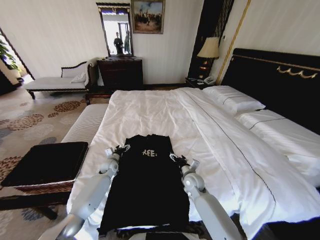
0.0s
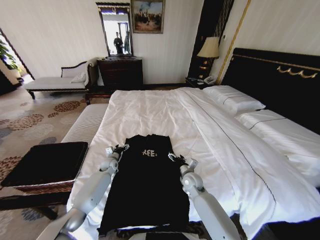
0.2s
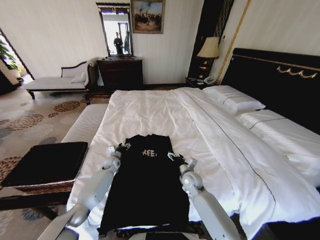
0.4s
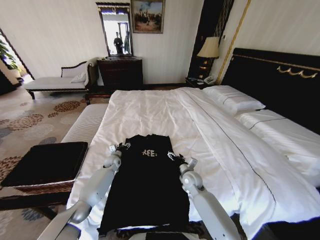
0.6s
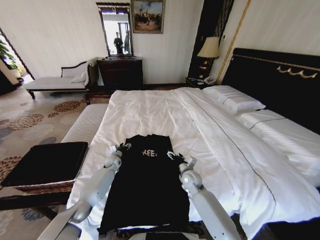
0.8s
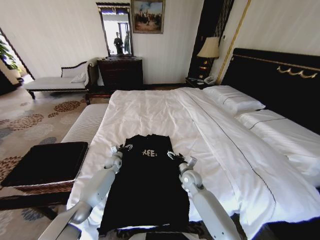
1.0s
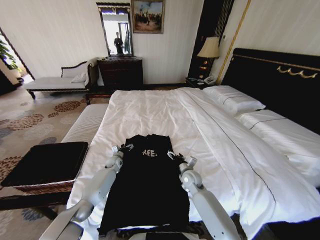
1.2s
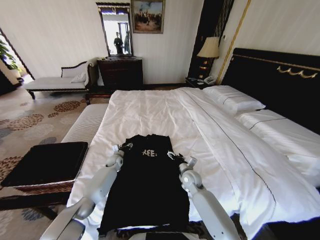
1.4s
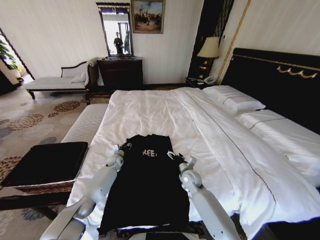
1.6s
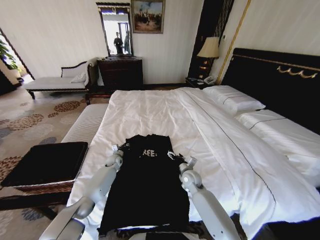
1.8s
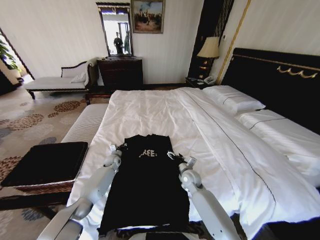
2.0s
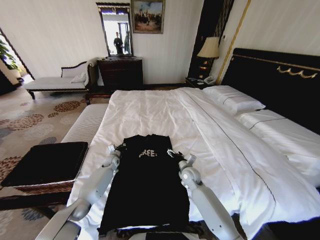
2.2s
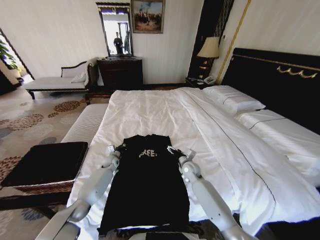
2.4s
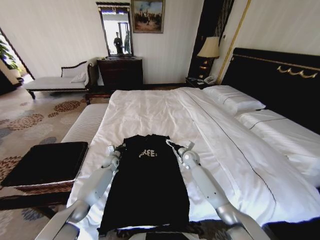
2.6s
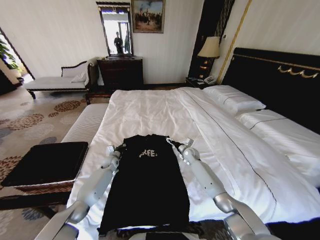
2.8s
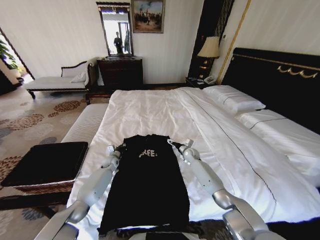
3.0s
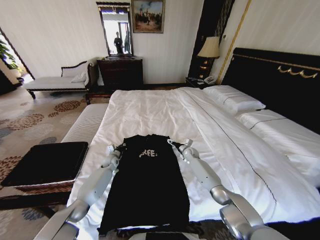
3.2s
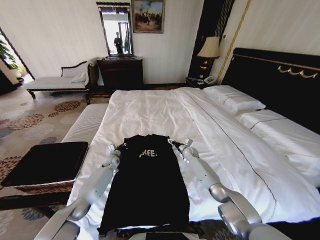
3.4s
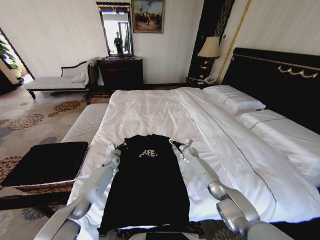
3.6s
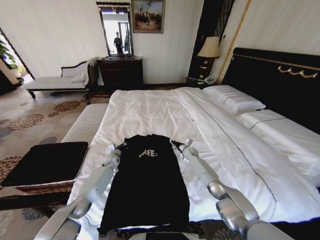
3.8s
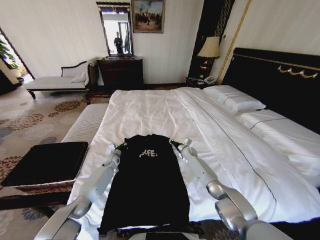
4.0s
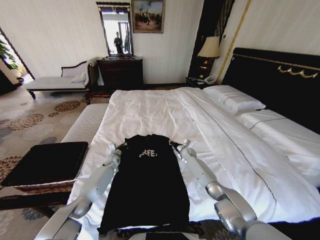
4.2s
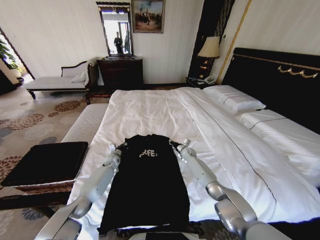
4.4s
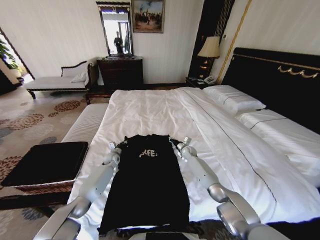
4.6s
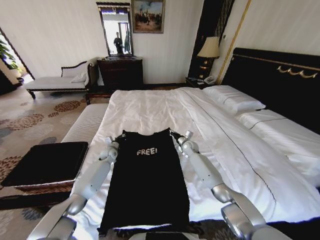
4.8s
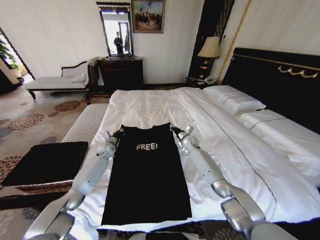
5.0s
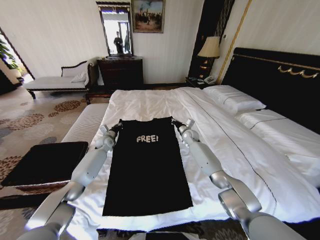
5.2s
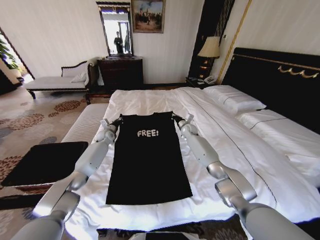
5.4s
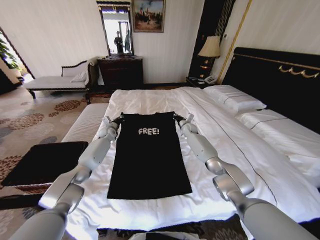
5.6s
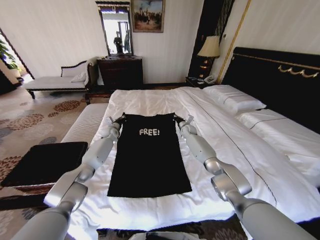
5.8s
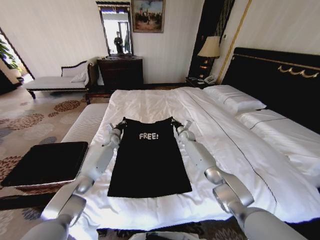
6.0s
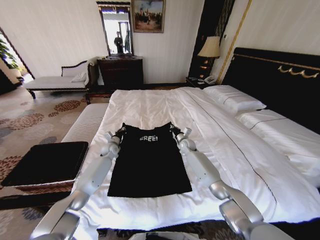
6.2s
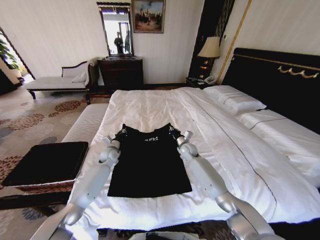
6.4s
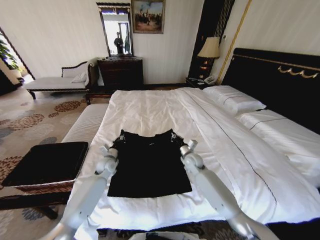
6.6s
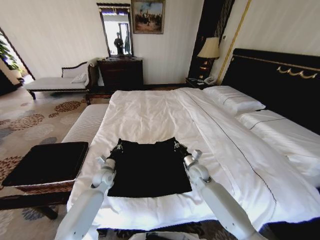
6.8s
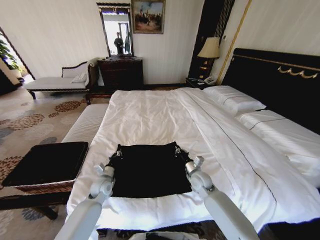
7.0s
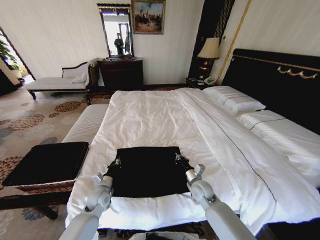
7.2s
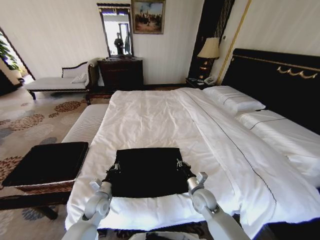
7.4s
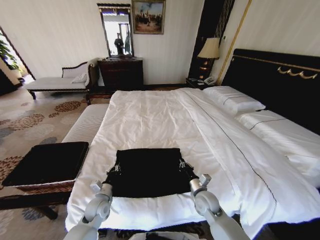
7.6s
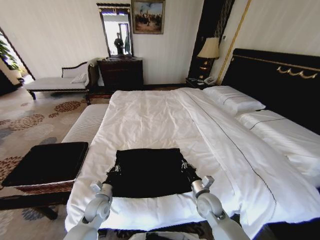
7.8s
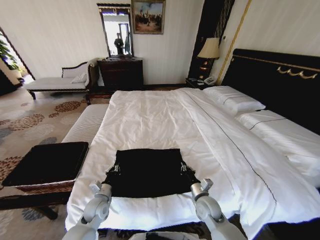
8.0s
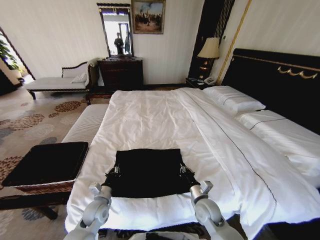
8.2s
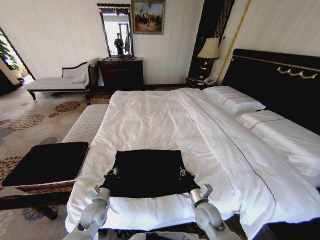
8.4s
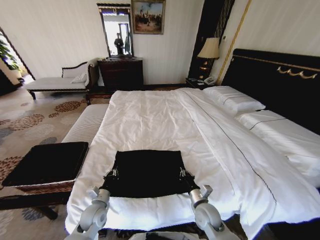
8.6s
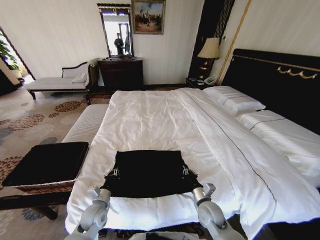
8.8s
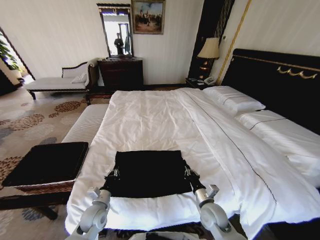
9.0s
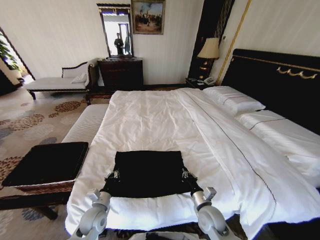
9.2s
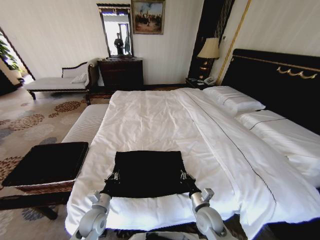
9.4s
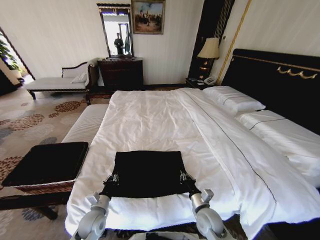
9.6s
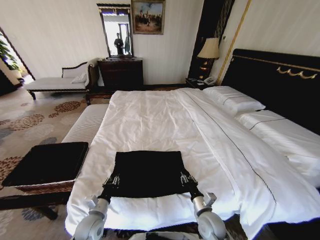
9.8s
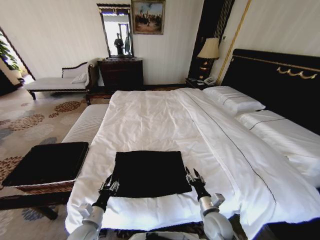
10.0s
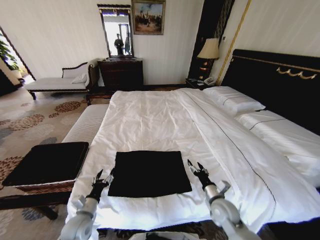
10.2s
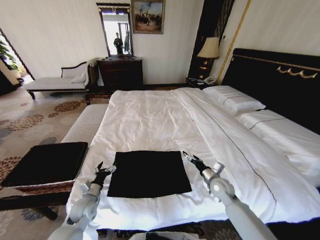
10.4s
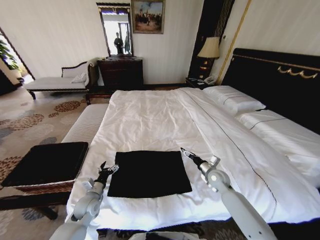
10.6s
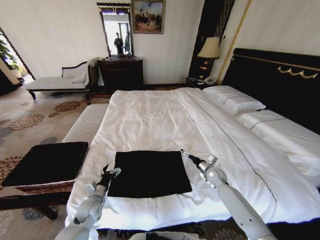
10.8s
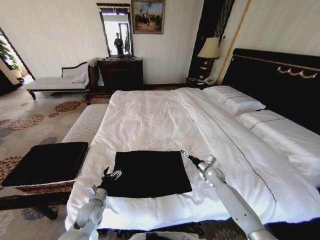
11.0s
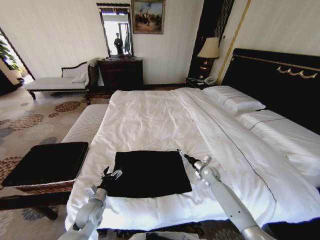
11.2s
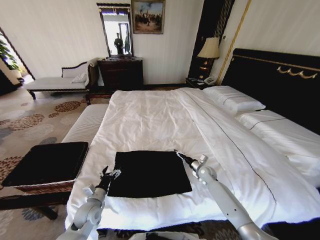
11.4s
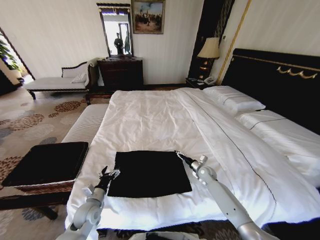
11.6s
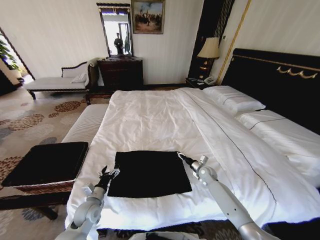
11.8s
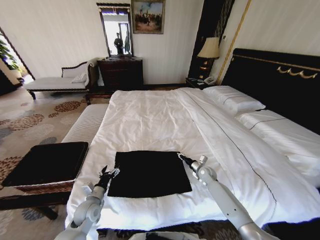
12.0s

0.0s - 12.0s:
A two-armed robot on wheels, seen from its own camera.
Task of the whole recording: Fold the clothes on the bed and place them into the basket.
0.0s - 1.6s: The left gripper travels forward by some 5 cm, and closes.
1.6s - 3.0s: The left gripper closes its fingers. Meanwhile the right gripper is displaced forward by some 15 cm.
3.0s - 4.4s: The right gripper closes.
4.4s - 6.0s: Both grippers travel together upward and forward, roughly 15 cm.
6.0s - 7.6s: The grippers both shift backward by roughly 35 cm.
7.6s - 9.0s: There are only small adjustments of the grippers.
9.0s - 10.4s: The right gripper shifts about 10 cm forward and to the right, and opens its fingers, while the left gripper travels to the left by some 5 cm, moves about 5 cm backward and comes back, and opens.
10.4s - 12.0s: The right gripper moves forward and downward, some 15 cm, and closes up.

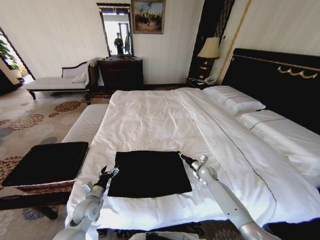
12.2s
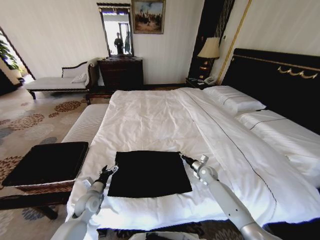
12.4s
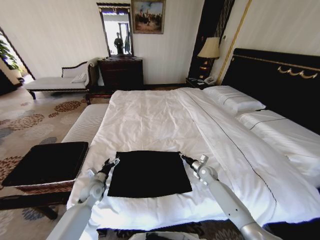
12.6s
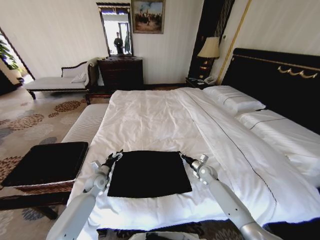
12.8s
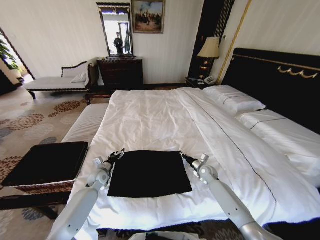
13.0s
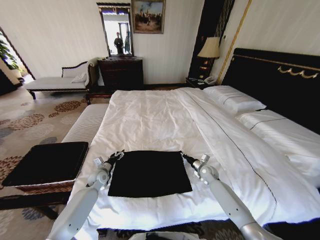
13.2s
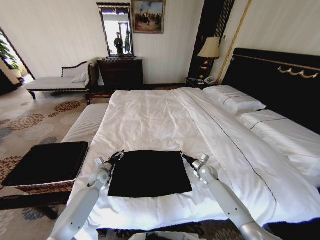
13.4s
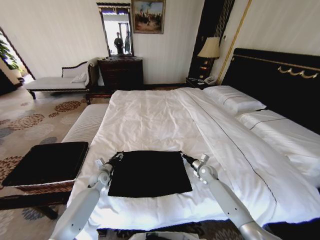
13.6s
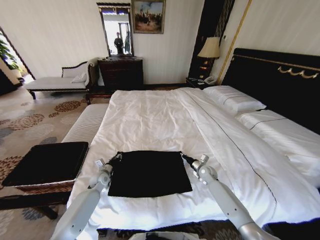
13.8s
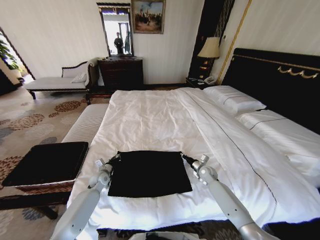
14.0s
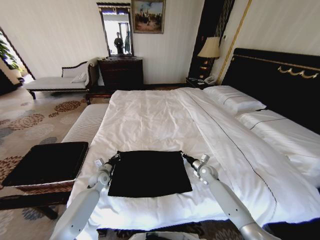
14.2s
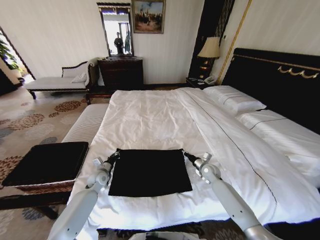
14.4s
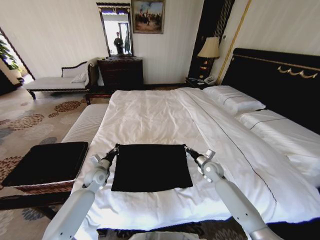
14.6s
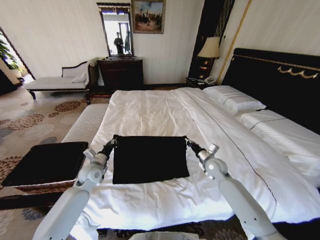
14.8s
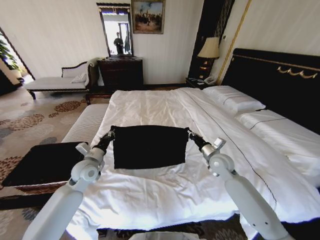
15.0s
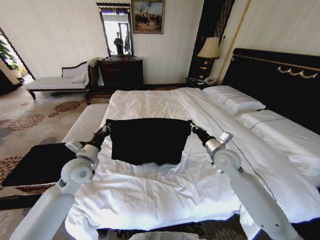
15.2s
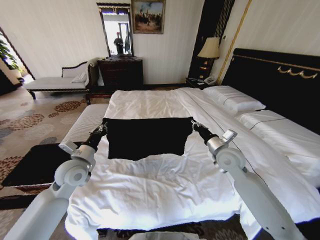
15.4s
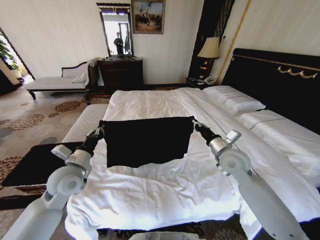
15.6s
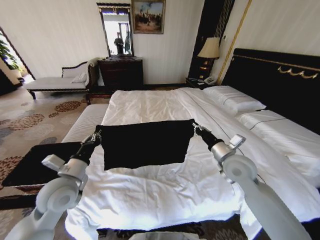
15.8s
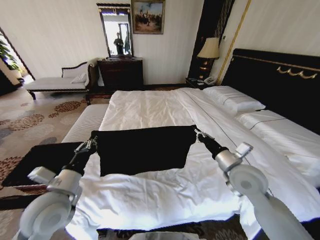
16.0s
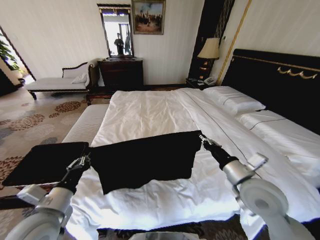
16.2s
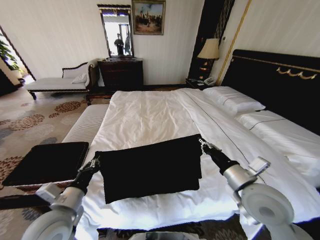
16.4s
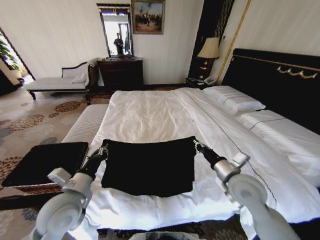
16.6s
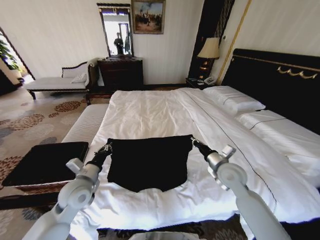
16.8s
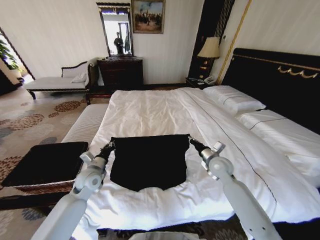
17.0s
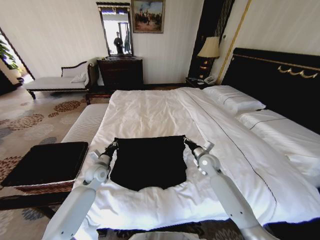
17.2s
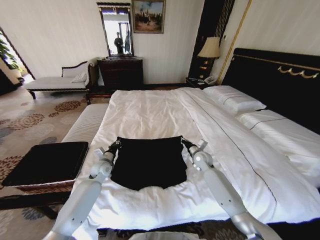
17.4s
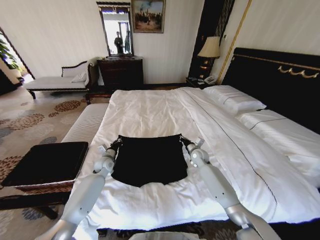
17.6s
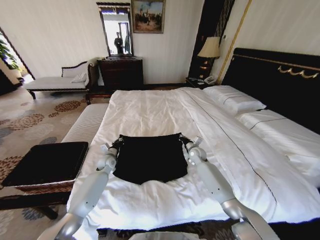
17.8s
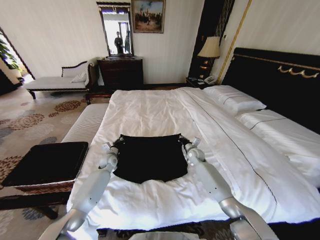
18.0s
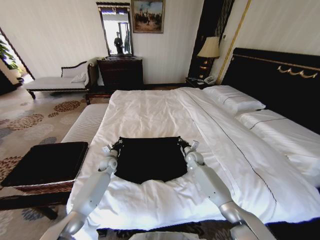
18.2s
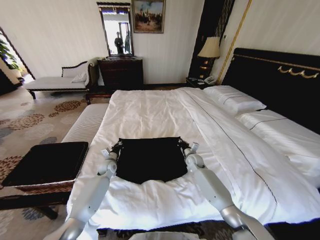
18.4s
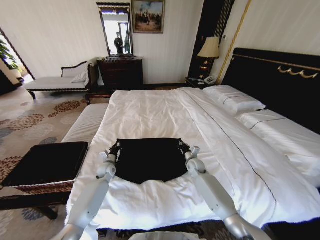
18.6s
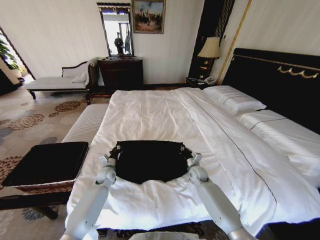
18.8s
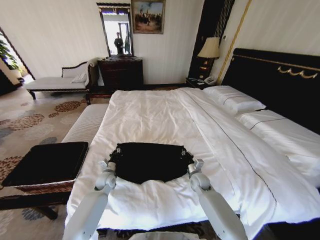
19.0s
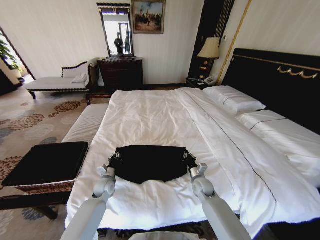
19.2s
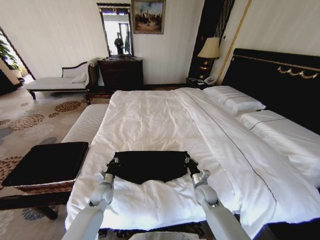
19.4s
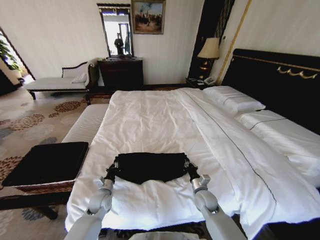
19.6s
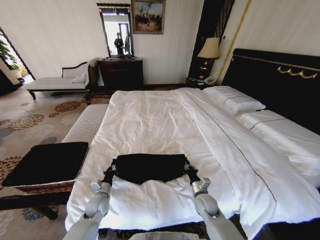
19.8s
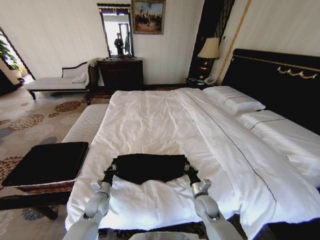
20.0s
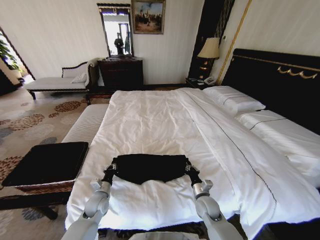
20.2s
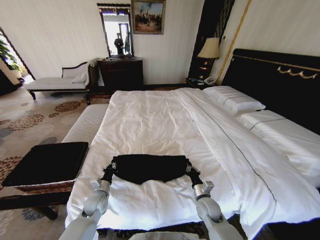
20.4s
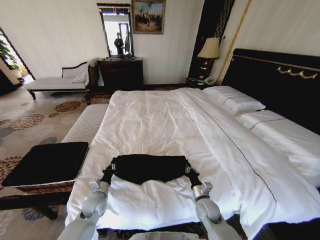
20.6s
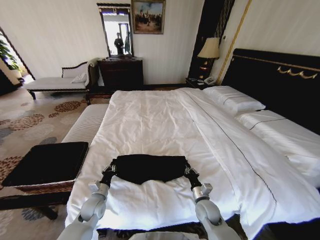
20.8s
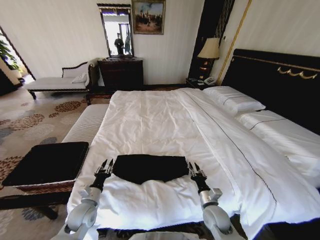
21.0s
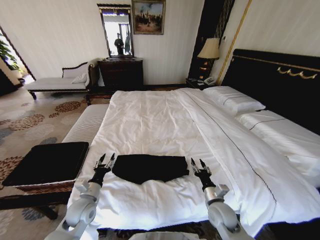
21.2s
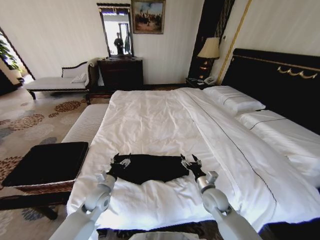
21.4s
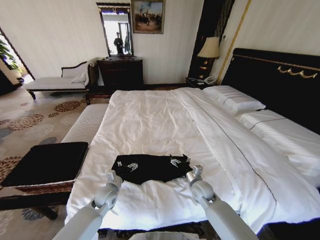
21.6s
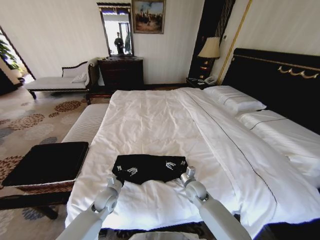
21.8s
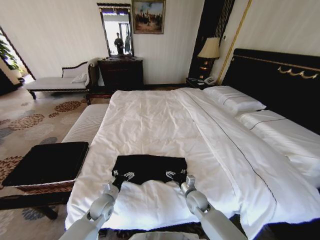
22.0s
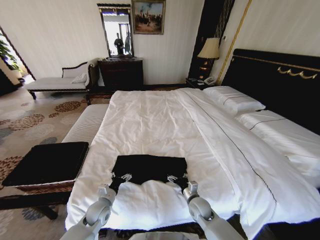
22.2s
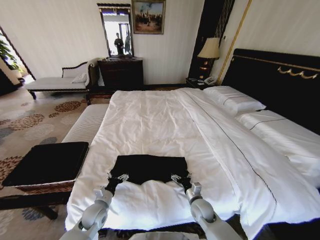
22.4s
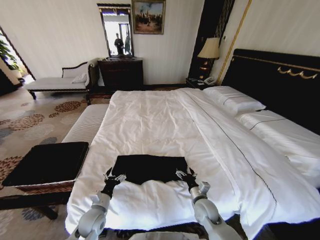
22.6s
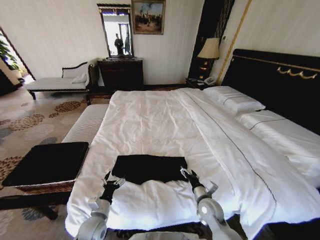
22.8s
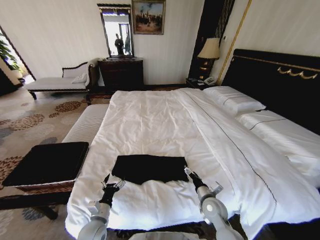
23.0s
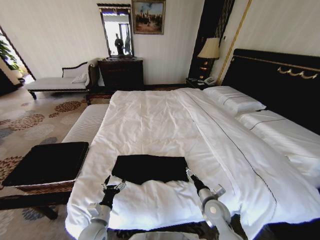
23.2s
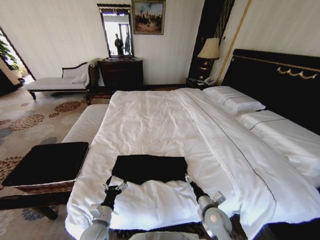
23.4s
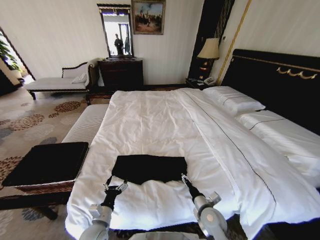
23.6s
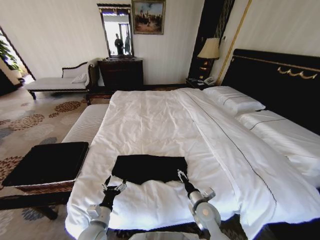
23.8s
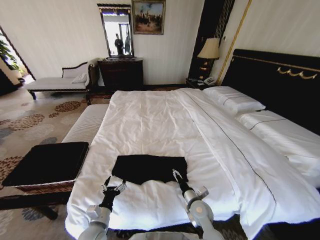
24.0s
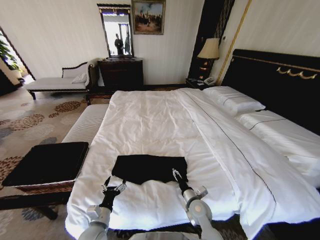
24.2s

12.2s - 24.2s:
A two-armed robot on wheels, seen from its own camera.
Task of the whole recording: Fold the clothes on the bed and place them into the basket.
12.2s - 13.8s: The left gripper goes some 15 cm forward, and closes its fingers.
13.8s - 15.2s: Both grippers travel together upward, roughly 20 cm.
15.2s - 16.6s: The grippers both shift backward by roughly 15 cm.
16.6s - 18.2s: The grippers both shift forward and downward by about 35 cm.
18.2s - 19.8s: The two grippers go some 20 cm backward.
19.8s - 21.2s: The left gripper goes about 10 cm upward, and opens its fingers. Meanwhile the right gripper moves backward, about 5 cm, and opens.
21.2s - 22.6s: The left gripper travels downward by roughly 5 cm, goes forward and returns, some 5 cm each way, and opens, while the right gripper travels forward and back again, some 10 cm each way, and opens its fingers.
22.6s - 24.2s: The left gripper heads backward, covering roughly 5 cm.
